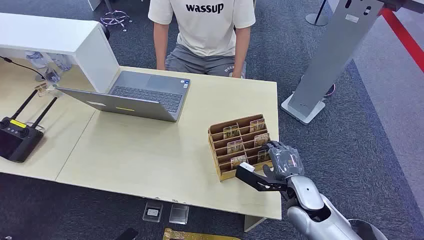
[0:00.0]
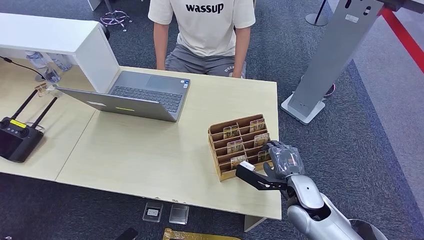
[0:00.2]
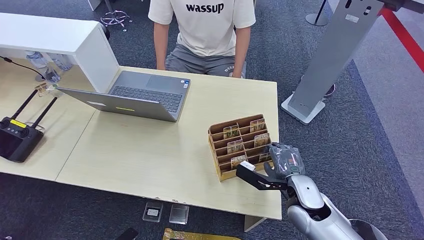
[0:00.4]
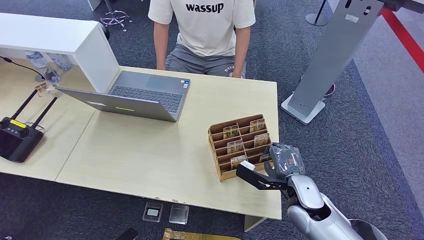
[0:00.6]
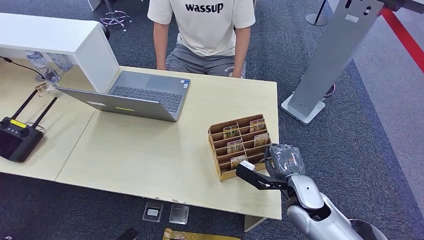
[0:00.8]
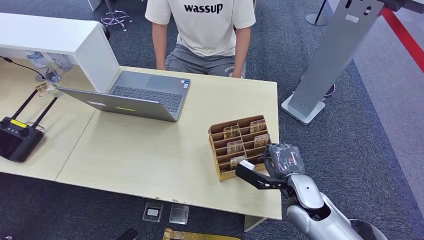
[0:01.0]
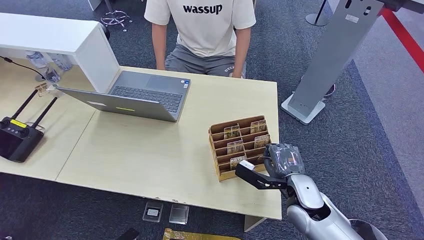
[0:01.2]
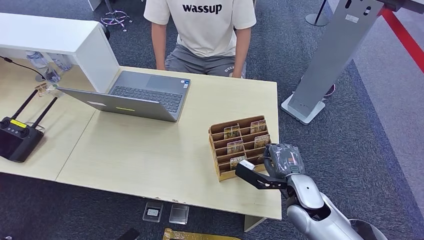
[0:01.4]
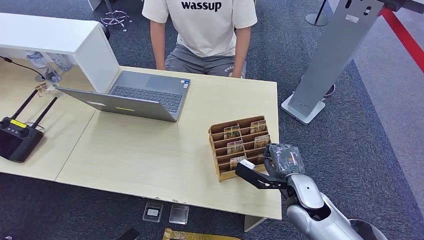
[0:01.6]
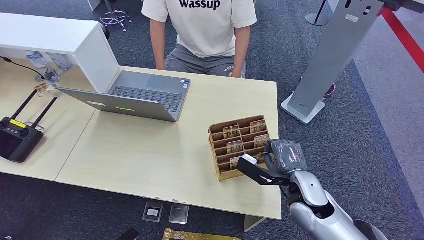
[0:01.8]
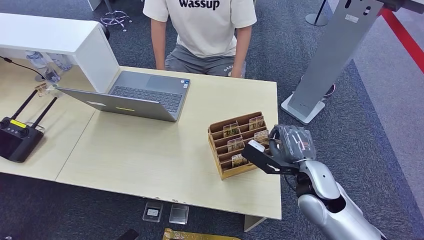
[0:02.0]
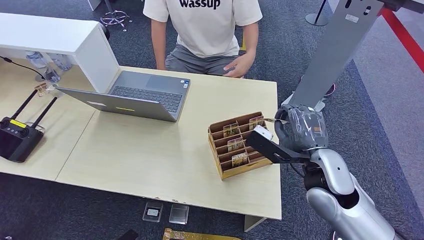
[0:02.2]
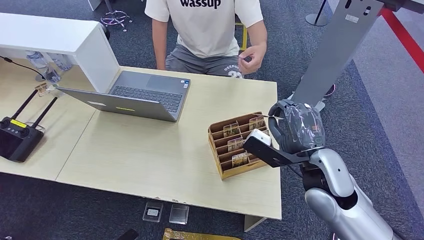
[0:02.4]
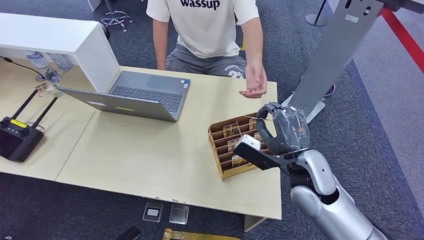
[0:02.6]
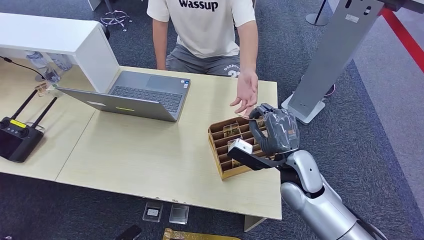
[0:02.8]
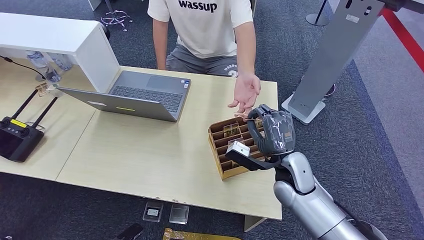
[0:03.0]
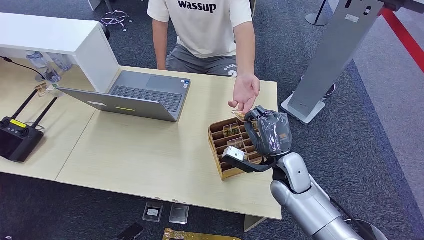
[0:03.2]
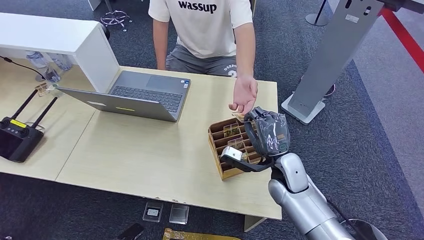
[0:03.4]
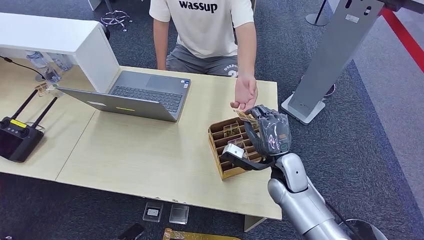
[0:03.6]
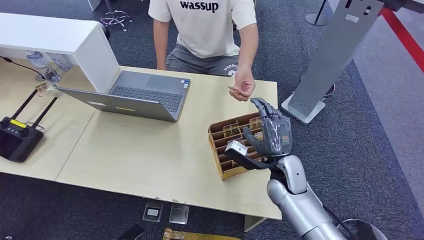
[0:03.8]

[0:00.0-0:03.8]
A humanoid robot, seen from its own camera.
Step, 0:00.0 to 0:01.8: Pick up the key card from the card box.
Step, 0:02.8 to 0:03.6: Hand the key card to the target.
0:01.2 to 0:02.6: The right hand heads upward, covering about 10 cm.
0:02.6 to 0:03.8: The right hand heads downward, covering some 10 cm.
